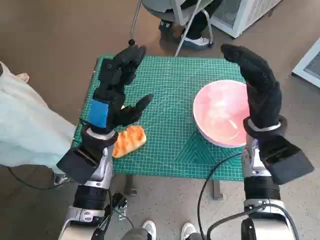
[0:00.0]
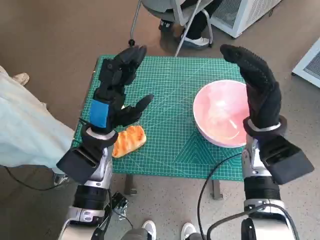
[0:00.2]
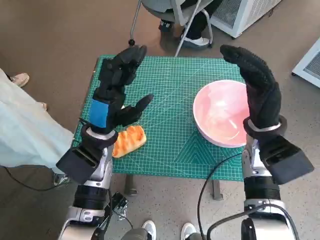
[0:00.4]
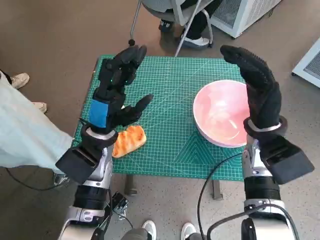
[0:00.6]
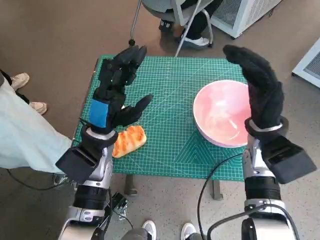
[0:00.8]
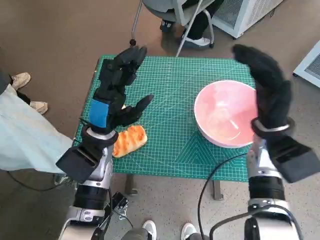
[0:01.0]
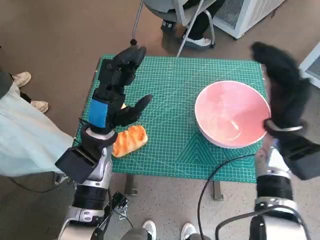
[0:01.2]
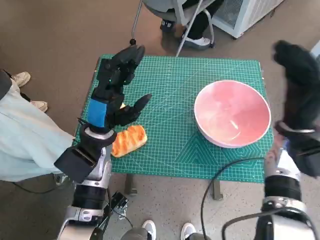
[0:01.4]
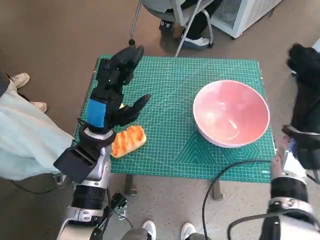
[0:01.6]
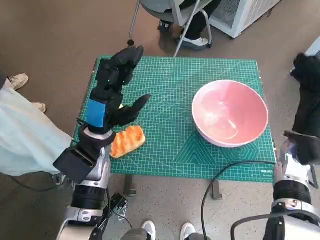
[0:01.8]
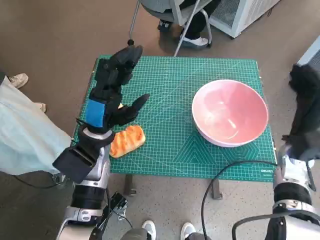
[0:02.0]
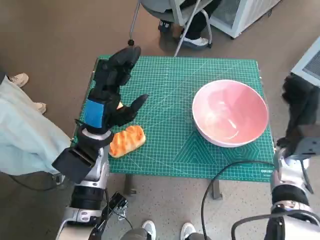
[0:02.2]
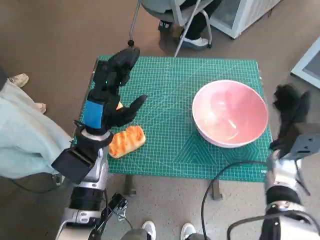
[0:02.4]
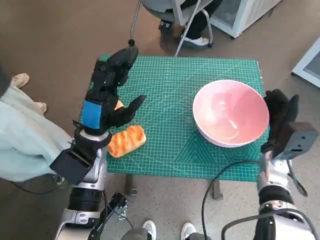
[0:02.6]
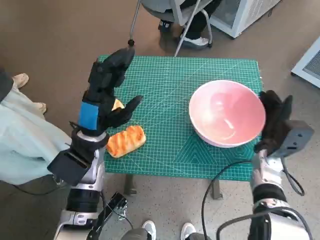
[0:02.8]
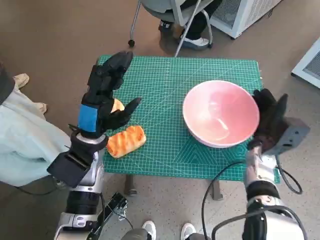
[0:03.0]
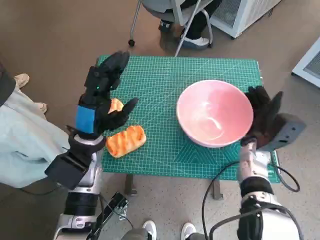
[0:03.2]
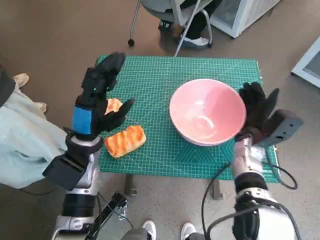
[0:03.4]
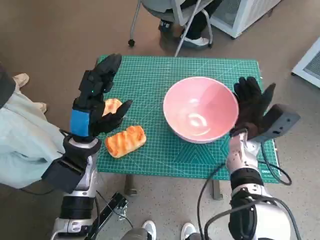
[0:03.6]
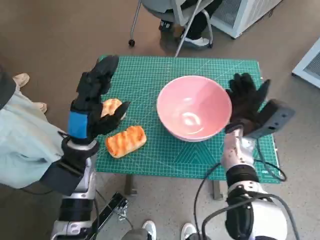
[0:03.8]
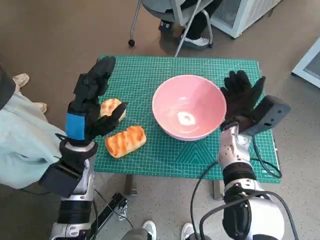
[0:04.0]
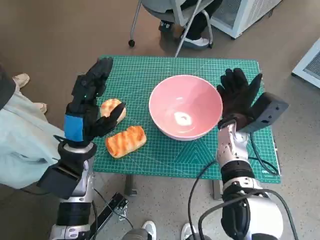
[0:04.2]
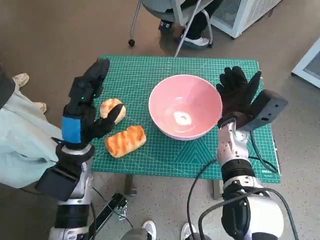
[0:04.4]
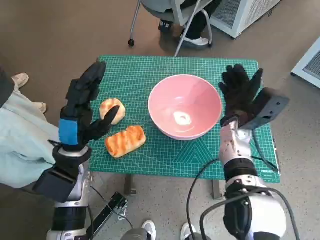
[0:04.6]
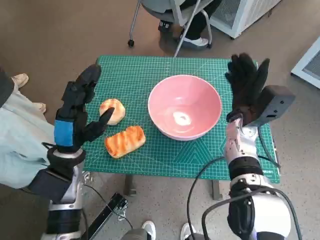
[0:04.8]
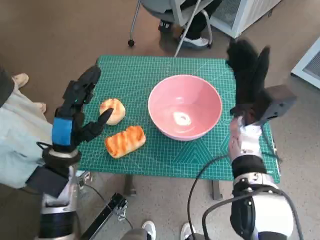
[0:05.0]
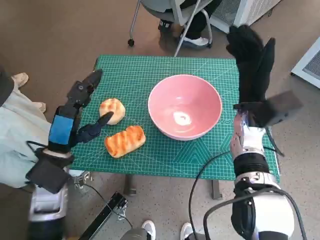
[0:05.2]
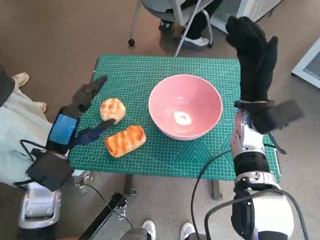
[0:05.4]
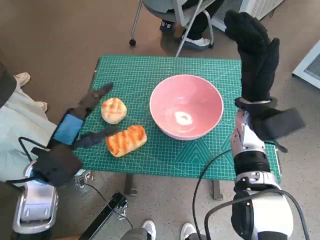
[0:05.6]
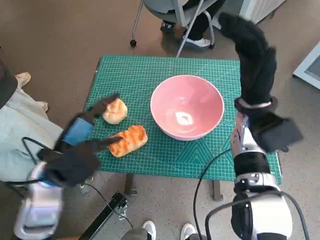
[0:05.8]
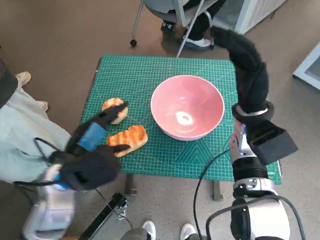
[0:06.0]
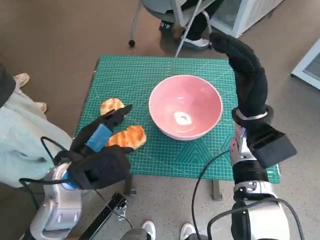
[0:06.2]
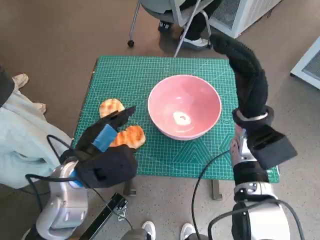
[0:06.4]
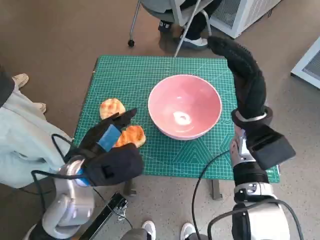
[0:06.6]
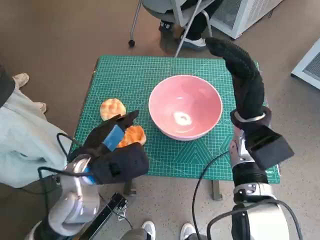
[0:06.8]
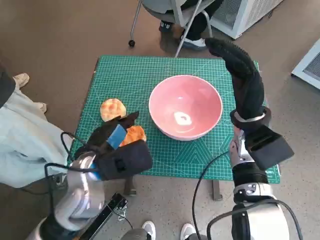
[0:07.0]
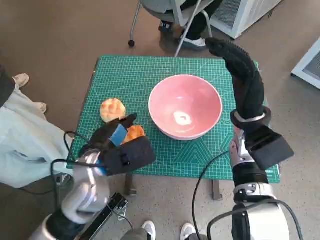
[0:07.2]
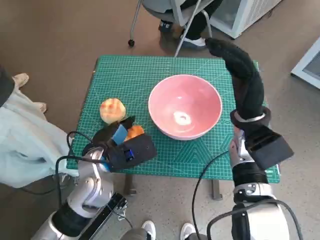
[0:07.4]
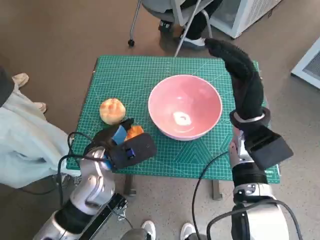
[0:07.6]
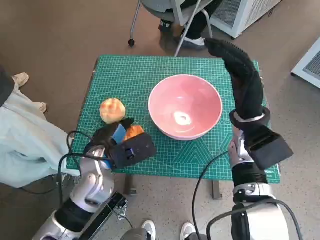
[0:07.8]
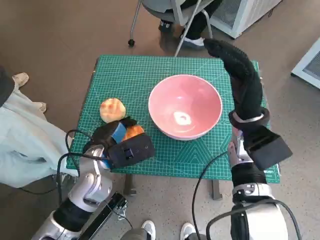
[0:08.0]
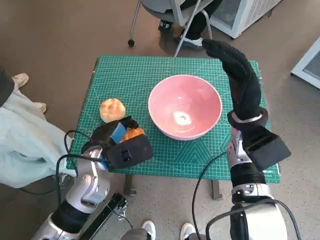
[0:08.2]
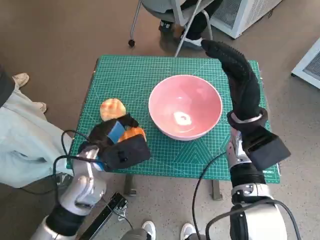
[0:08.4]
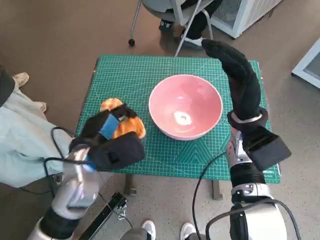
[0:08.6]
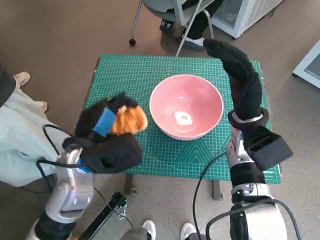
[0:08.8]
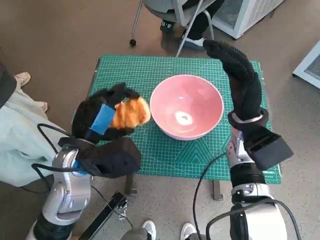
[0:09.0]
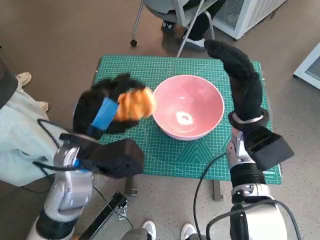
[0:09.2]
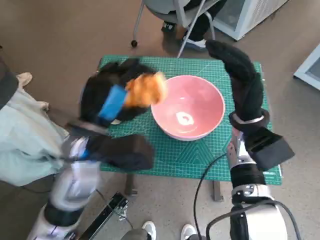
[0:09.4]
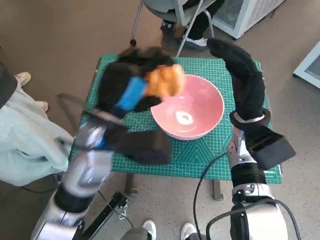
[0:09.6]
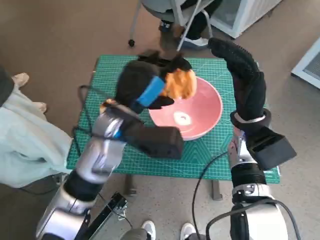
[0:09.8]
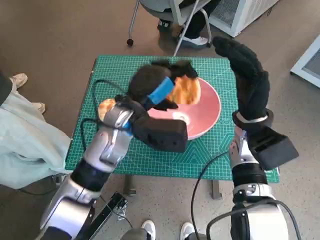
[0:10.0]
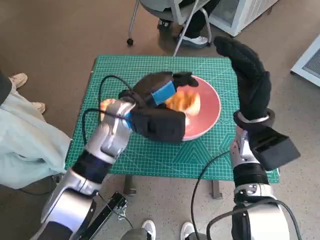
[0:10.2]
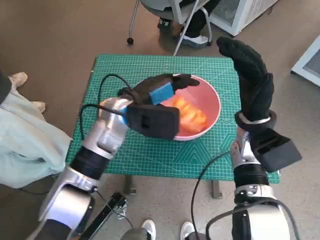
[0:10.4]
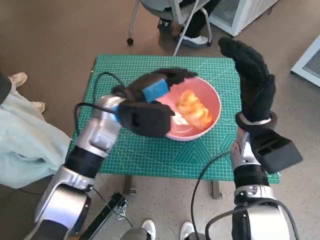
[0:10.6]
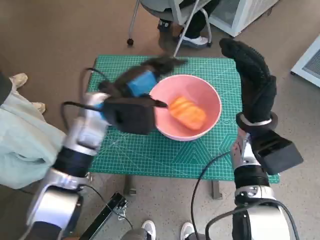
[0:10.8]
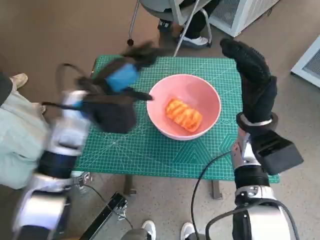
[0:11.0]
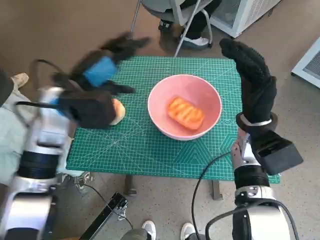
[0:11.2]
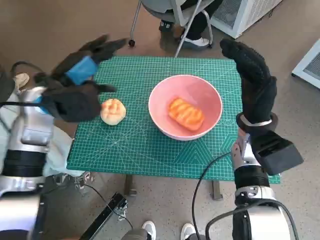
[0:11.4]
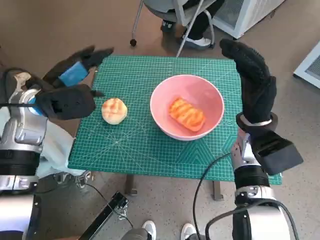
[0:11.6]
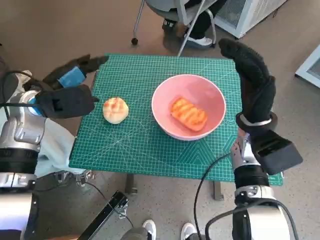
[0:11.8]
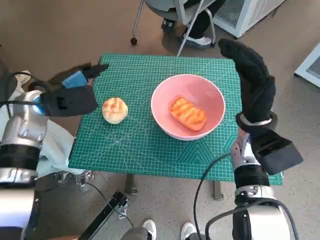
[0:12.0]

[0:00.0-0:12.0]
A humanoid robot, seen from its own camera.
Task of the whole recording: Push the bowl to the center of the table and put the bread into the bowl.
Step, 0:00.0 to 0:04.6: Move the pink bowl to the center of table with right hand.
Step, 0:04.8 to 0:07.8: Grasp the long bread with left hand.
Step, 0:08.0 to 0:10.2: Place the long bread in pink bowl with left hand.
0:01.6 to 0:03.0: The right hand is displaced downward by approximately 10 cm.
0:03.0 to 0:04.4: The right hand travels to the left by approximately 5 cm.
0:04.4 to 0:06.0: The left hand changes place by approximately 5 cm. The right hand moves upward, about 5 cm.
0:06.0 to 0:07.6: The left hand heads downward, covering roughly 5 cm.
0:07.6 to 0:09.0: The left hand is displaced upward by approximately 5 cm.
0:09.0 to 0:10.4: The left hand shifts about 10 cm forward and to the right.
0:10.4 to 0:12.0: The left hand is displaced to the left by about 15 cm.

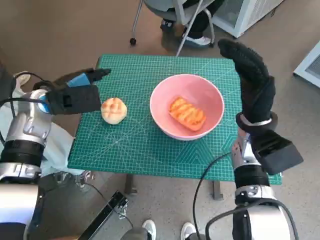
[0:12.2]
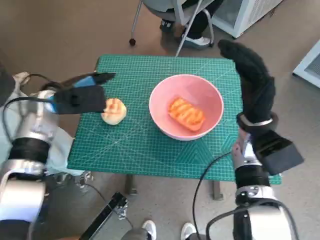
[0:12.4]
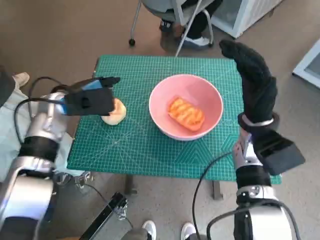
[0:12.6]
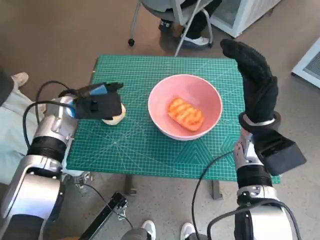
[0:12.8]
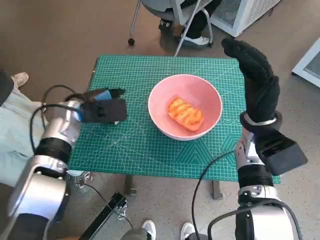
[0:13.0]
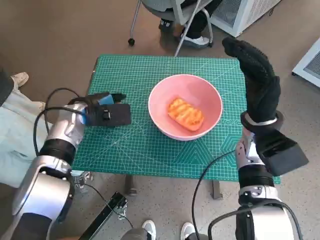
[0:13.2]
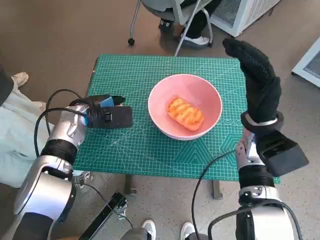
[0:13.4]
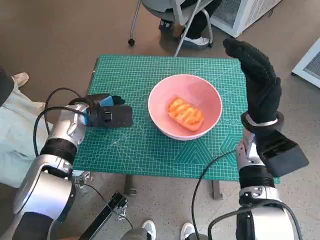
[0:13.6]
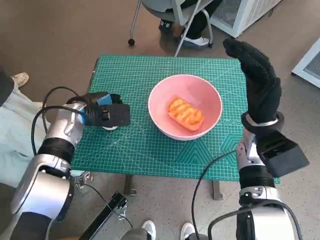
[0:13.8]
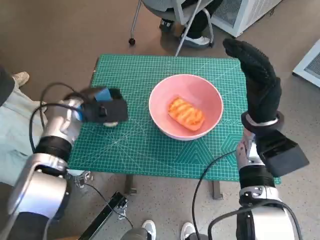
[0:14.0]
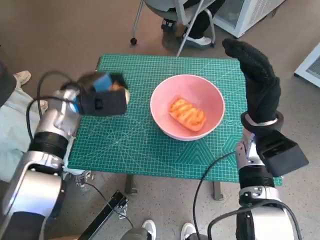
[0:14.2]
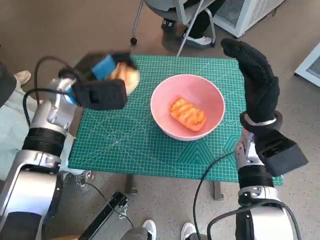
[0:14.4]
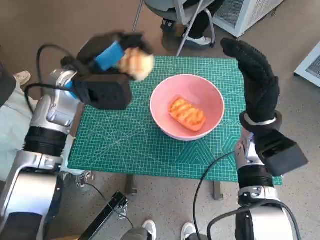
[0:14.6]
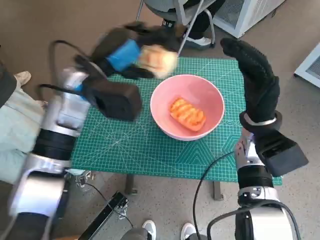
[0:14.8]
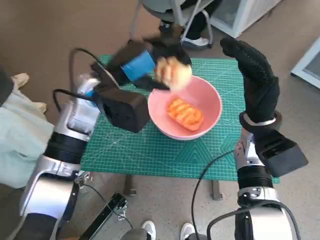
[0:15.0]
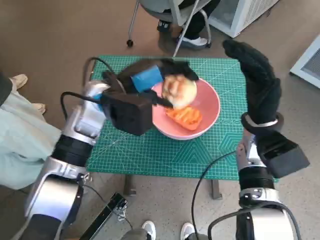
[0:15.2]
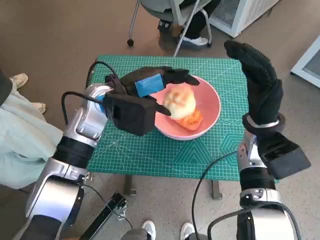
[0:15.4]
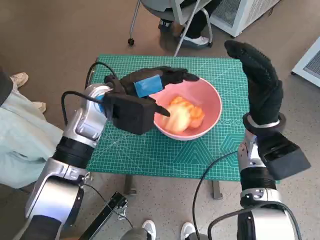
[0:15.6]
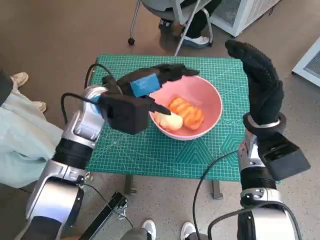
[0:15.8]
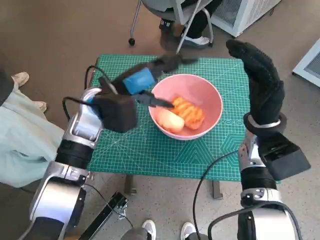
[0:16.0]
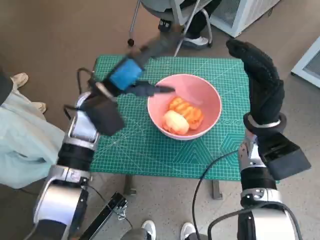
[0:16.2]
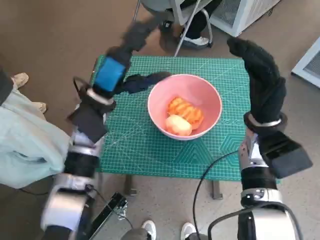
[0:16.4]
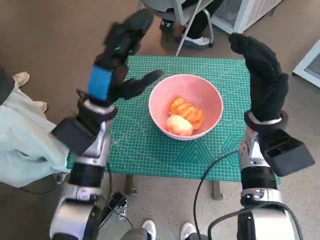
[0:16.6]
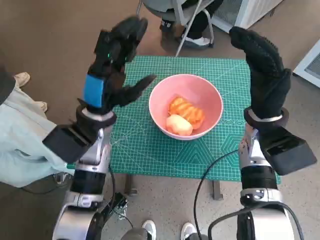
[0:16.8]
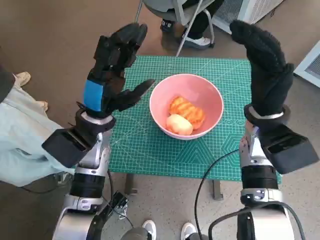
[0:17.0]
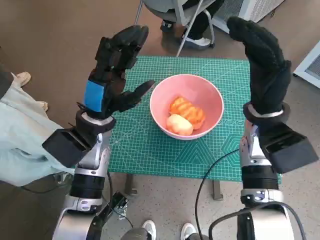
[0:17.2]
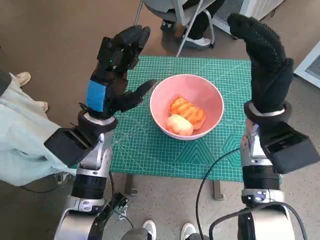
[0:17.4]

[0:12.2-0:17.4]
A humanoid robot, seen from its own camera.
Task of the whole recording: Push the bowl to the center of the table and put the bread into the bowl.
Step, 0:13.6 to 0:15.6: Place the round bread in pink bowl with left hand.
0:12.2 to 0:14.0: The left hand moves downward, about 5 cm.
0:14.0 to 0:15.6: The left hand travels to the right and upward by approximately 10 cm.
0:15.6 to 0:17.4: The left hand changes place by roughly 5 cm.

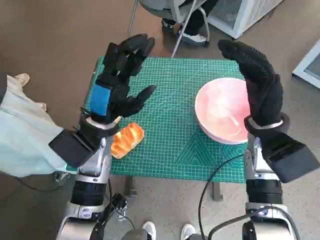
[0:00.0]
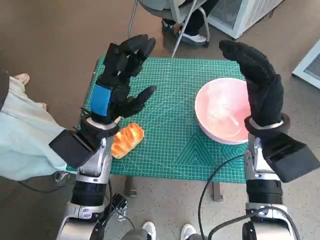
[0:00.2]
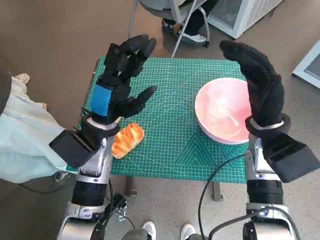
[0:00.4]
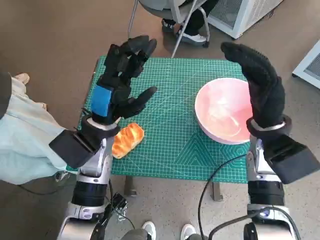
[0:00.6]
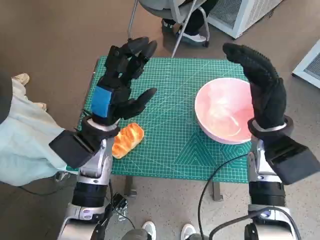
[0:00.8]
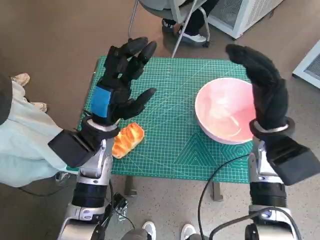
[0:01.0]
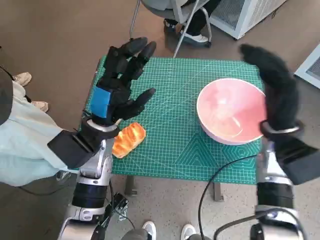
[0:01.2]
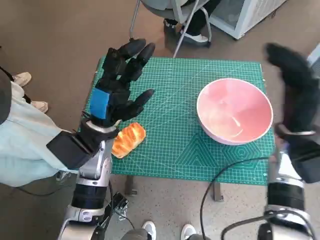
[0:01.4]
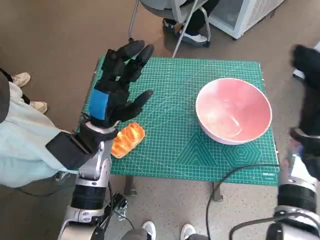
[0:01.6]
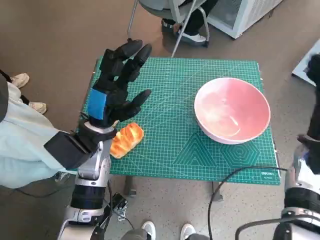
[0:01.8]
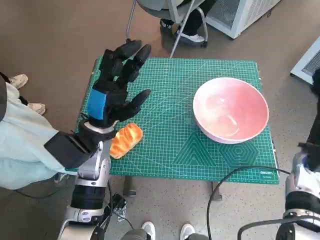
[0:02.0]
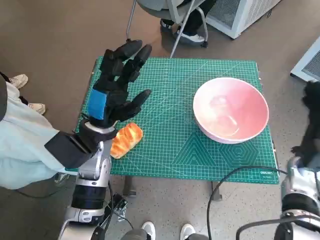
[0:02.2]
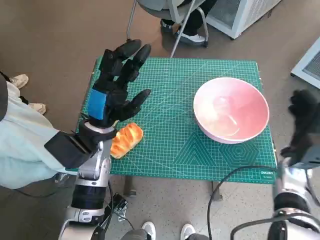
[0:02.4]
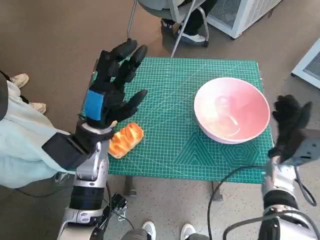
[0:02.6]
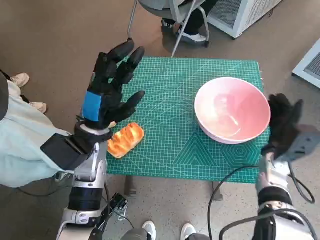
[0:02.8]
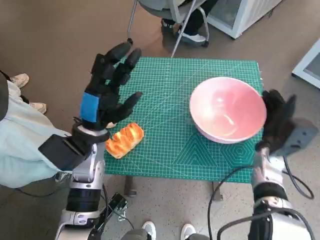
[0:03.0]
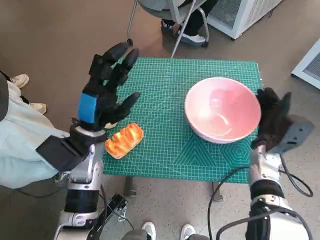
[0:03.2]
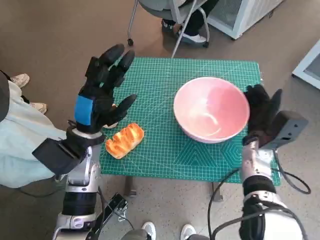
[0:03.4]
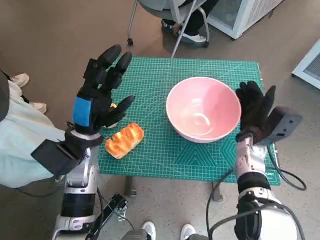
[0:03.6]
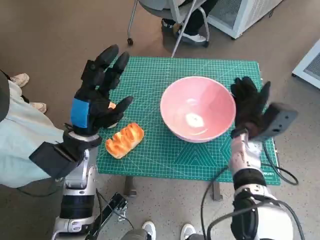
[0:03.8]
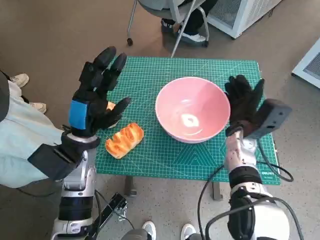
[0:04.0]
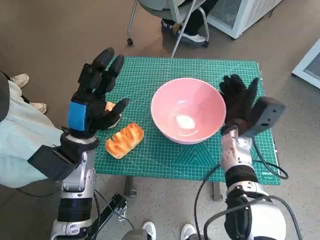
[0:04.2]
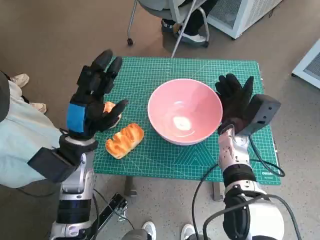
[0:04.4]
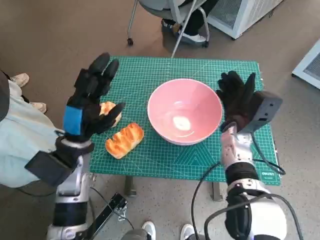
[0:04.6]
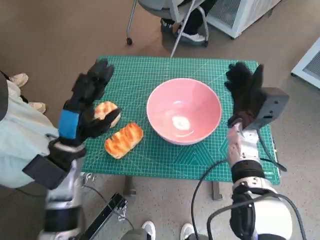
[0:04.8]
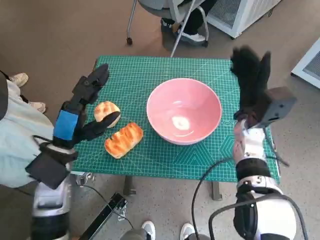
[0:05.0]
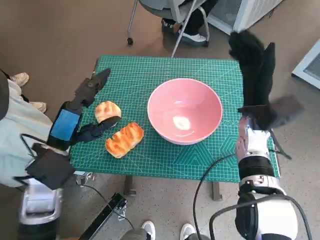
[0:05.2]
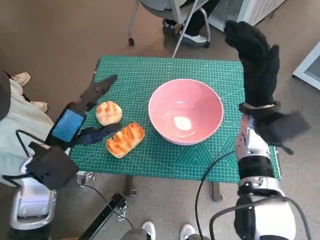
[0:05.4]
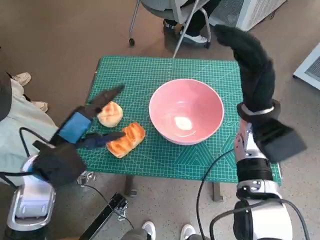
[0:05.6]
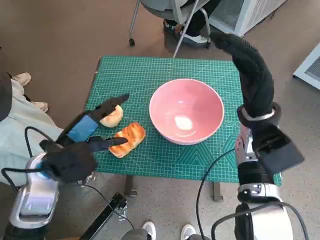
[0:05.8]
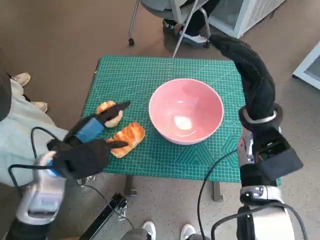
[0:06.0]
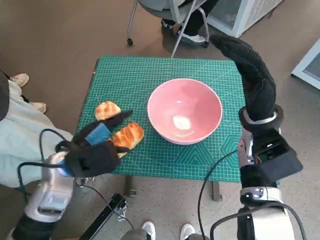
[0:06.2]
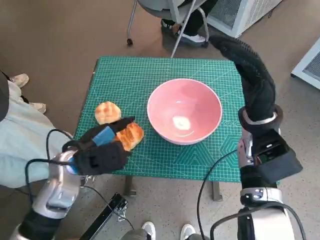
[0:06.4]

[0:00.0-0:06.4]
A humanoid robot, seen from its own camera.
Task of the whole recording: Push the bowl to the center of the table and put the bread into the bowl.
Step, 0:00.0 to 0:04.6: Move the pink bowl to the center of table with right hand.
0:01.6 to 0:03.2: The right hand goes about 10 cm downward.
0:03.2 to 0:04.8: The right hand goes roughly 5 cm to the left.
0:04.8 to 0:06.4: The right hand is displaced upward by approximately 10 cm.
